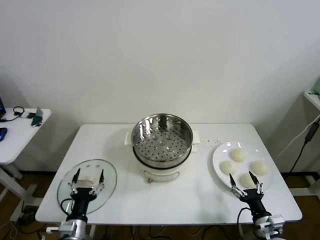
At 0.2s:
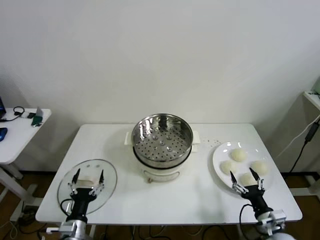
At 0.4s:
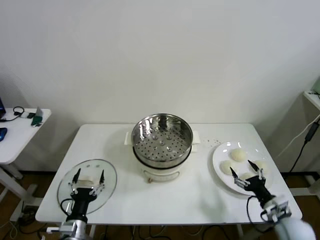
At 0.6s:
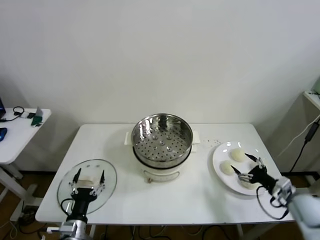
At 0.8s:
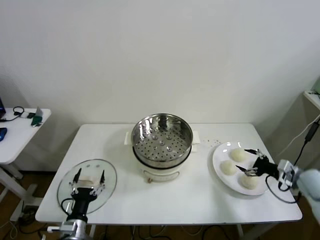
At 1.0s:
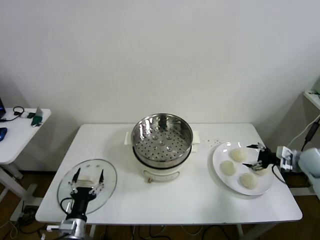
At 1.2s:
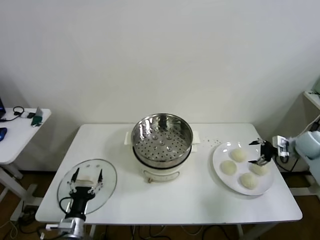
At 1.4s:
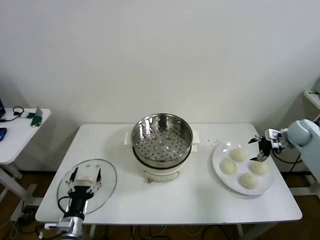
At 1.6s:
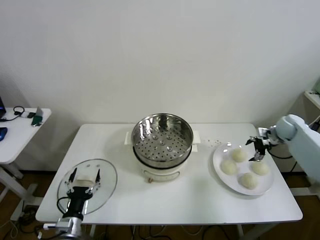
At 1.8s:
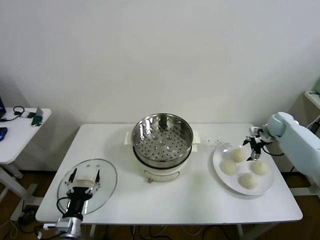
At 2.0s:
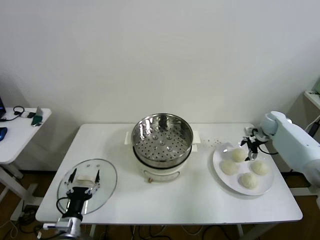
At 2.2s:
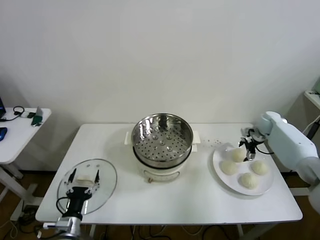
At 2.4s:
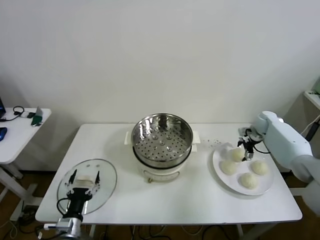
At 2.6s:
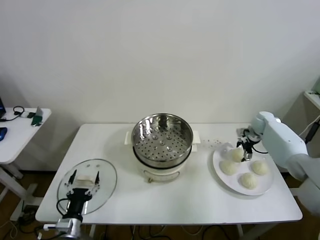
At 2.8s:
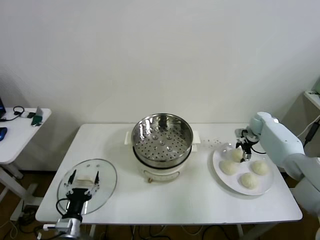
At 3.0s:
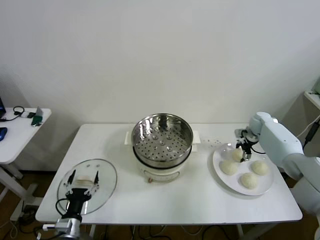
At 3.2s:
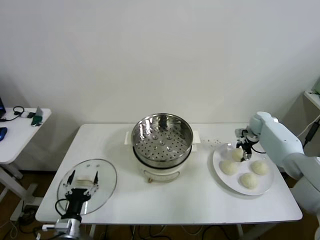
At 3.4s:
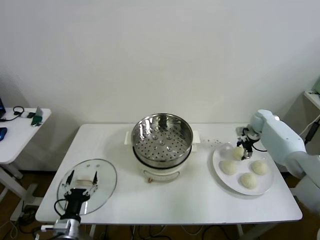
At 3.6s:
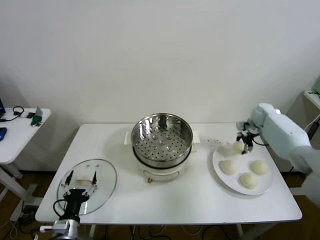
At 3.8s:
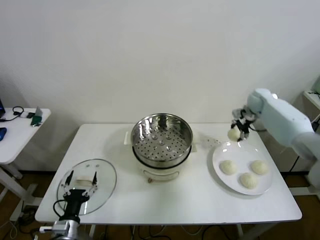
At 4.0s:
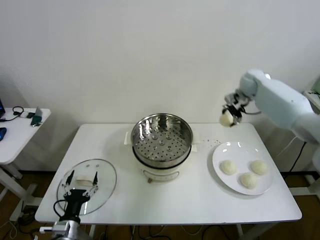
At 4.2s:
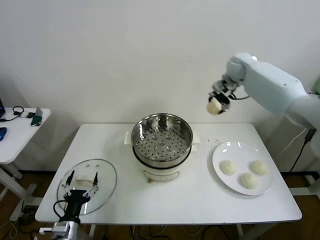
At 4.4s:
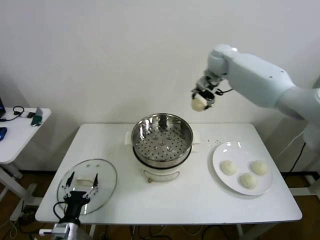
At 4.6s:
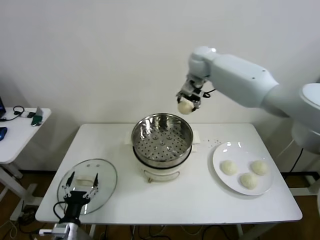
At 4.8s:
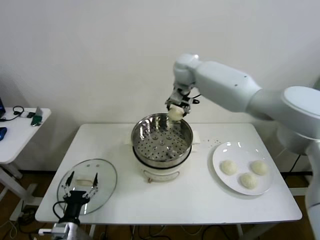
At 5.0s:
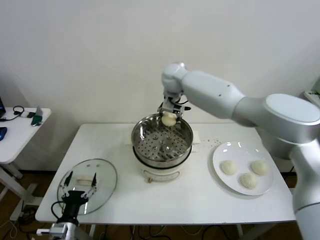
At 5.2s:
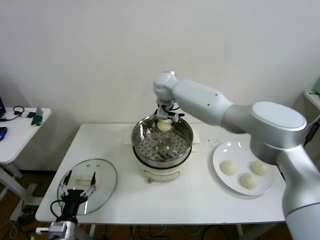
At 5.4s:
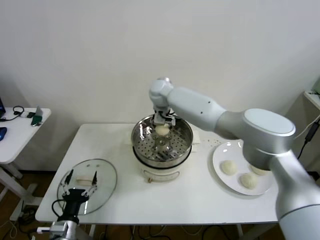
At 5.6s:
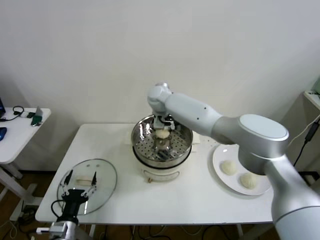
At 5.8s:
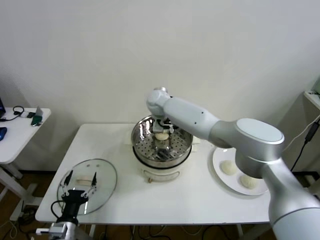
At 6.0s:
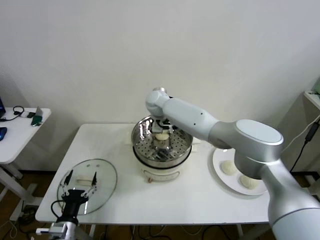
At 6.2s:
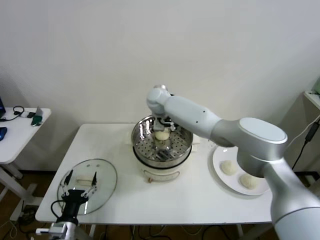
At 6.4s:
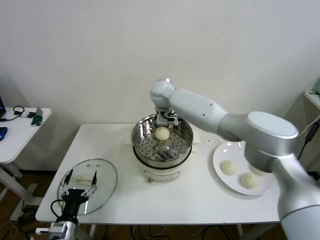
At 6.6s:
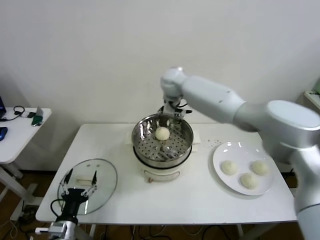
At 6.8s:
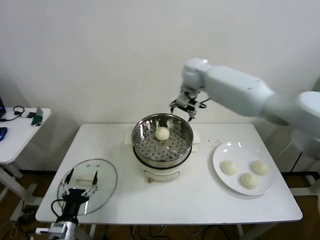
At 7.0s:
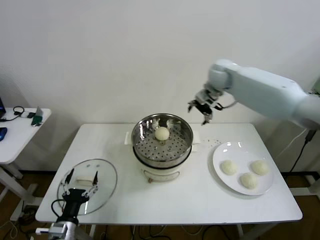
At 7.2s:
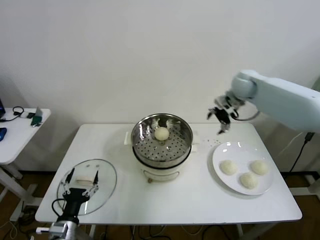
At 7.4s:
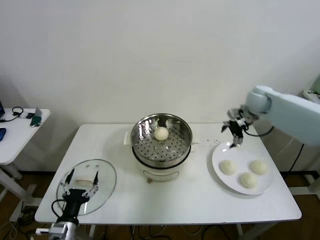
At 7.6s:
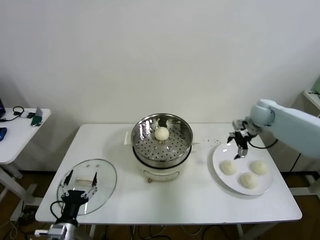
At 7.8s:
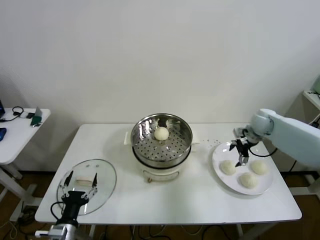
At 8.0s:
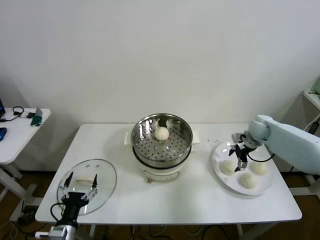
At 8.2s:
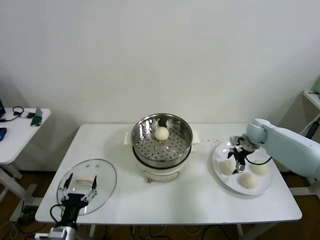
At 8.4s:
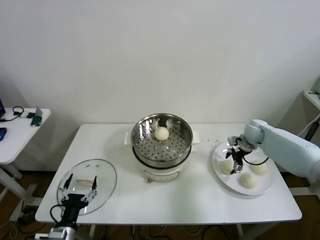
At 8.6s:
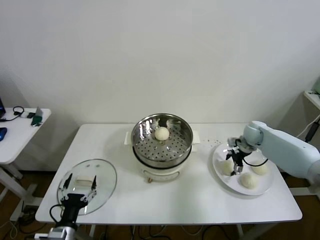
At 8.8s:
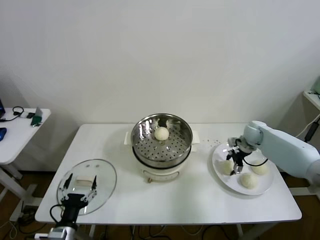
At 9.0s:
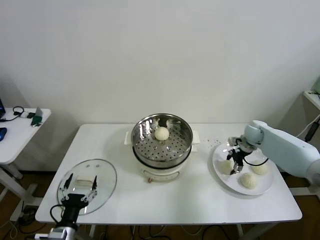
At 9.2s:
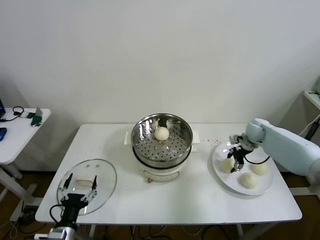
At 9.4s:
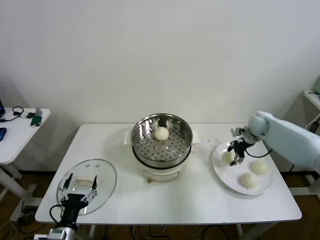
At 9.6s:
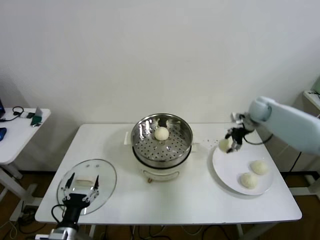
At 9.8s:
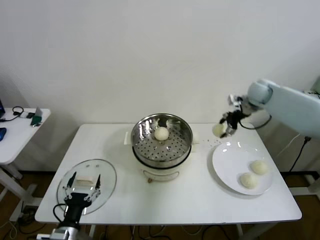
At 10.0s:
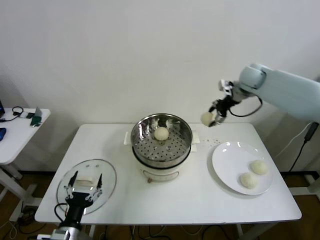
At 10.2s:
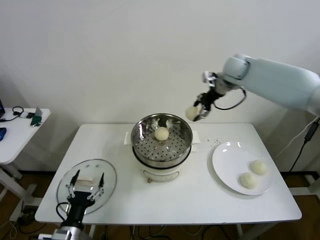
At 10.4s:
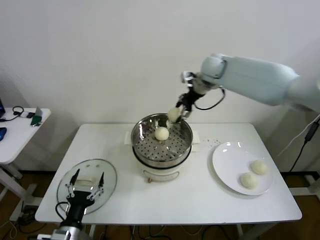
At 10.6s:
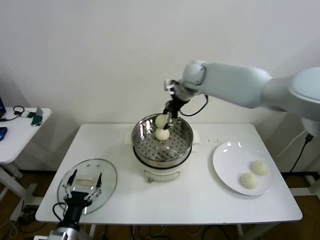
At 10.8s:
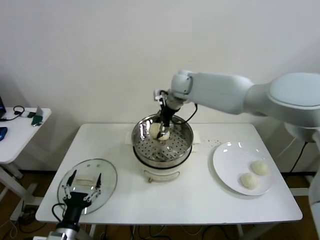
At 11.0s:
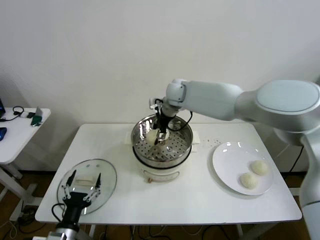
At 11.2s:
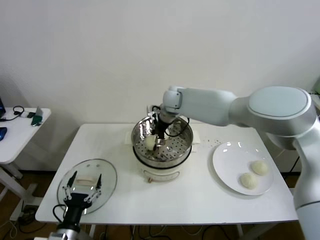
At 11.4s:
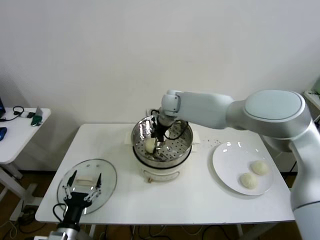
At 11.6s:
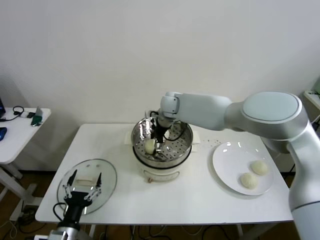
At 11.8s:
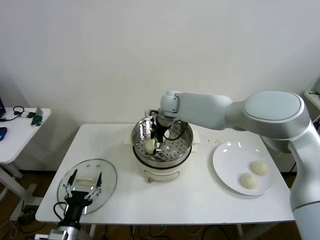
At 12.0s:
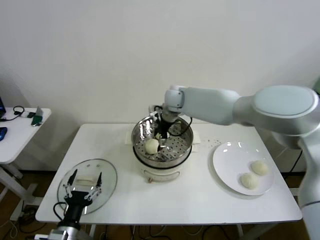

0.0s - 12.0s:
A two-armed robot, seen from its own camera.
Step, 0.0s - 3.2s: Grasp the baozi in the plate with right gripper.
Step, 3.4s - 5.8s: Place the baozi on the steamer with right gripper.
Step, 6.0s - 9.0s: Grasp the baozi in the plate with right gripper.
Step, 9.2s - 11.8s: Place the baozi on the steamer with right gripper.
1.6s - 3.0s: The right gripper is displaced to the left by roughly 5 cm.
3.0s - 4.4s: The right gripper goes some 40 cm upward and to the left.
4.4s - 6.0s: The right gripper heads to the left and downward, covering roughly 25 cm.
6.0s - 7.6s: The right gripper travels to the right by approximately 40 cm.
7.6s - 9.0s: The right gripper heads downward, covering some 10 cm.
9.0s - 10.4s: The right gripper moves upward and to the left, some 35 cm.
10.4s - 12.0s: The right gripper moves downward and to the left, roughly 10 cm.

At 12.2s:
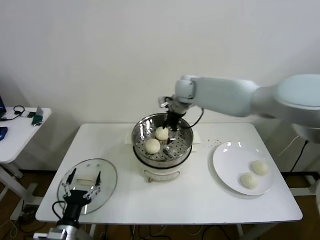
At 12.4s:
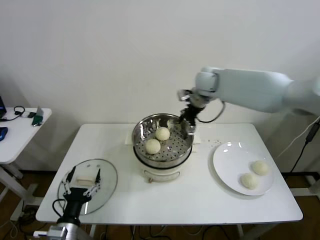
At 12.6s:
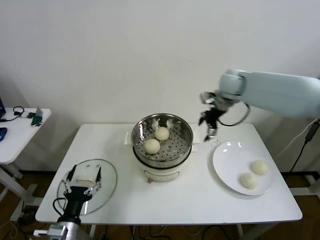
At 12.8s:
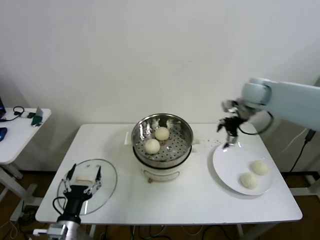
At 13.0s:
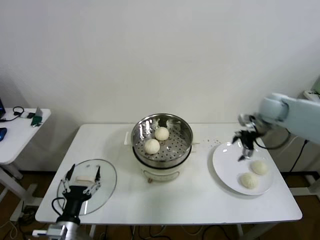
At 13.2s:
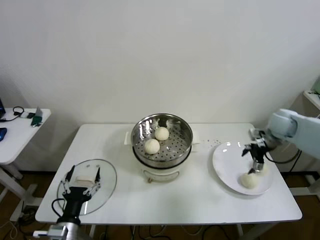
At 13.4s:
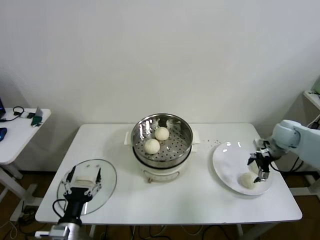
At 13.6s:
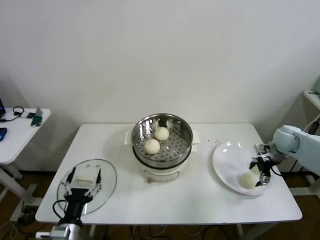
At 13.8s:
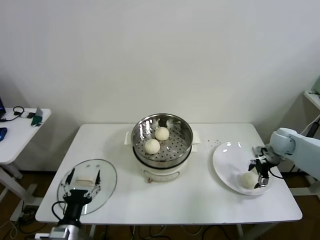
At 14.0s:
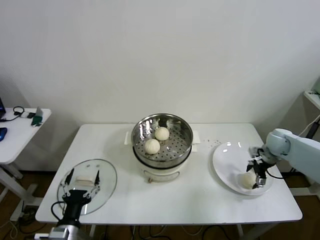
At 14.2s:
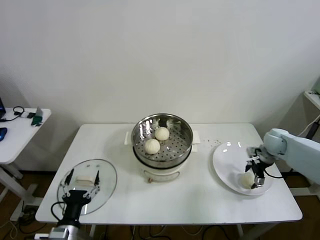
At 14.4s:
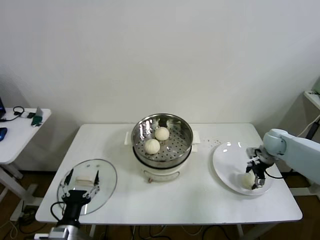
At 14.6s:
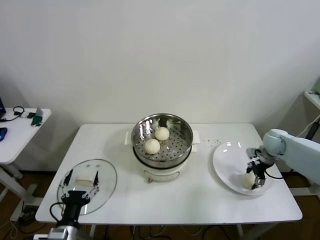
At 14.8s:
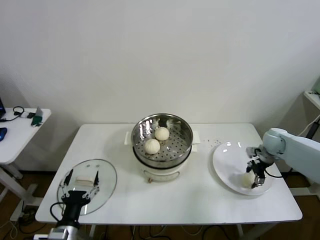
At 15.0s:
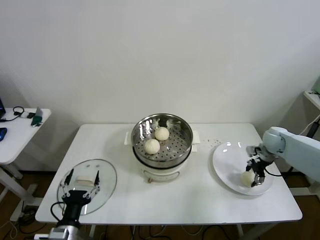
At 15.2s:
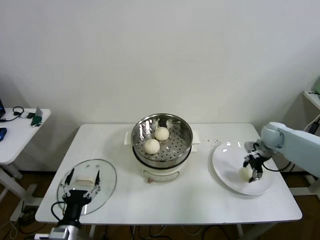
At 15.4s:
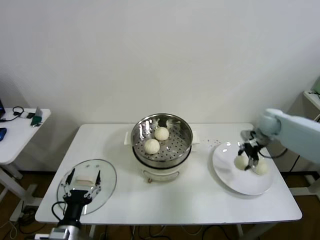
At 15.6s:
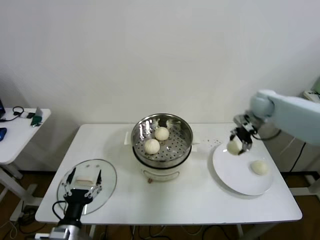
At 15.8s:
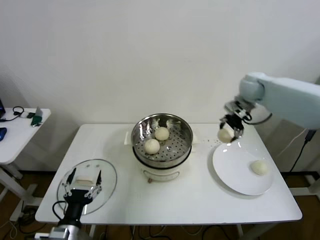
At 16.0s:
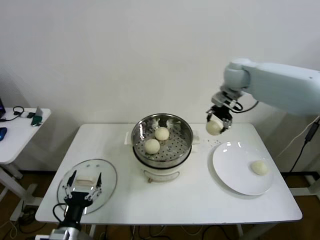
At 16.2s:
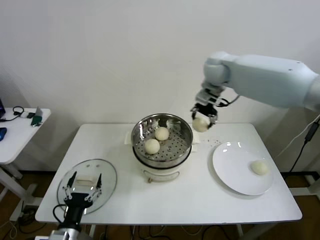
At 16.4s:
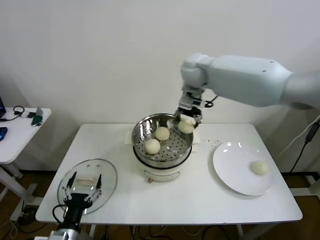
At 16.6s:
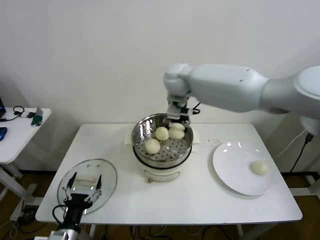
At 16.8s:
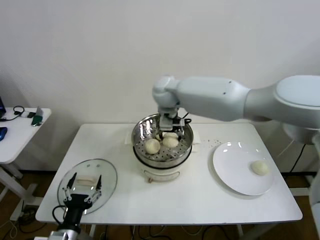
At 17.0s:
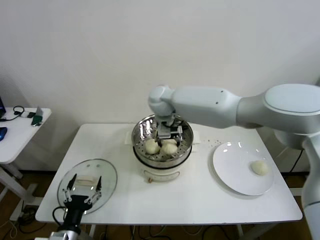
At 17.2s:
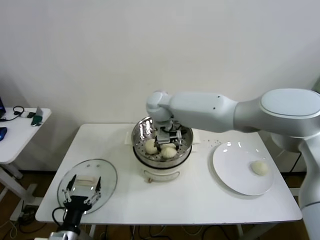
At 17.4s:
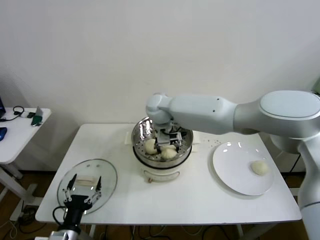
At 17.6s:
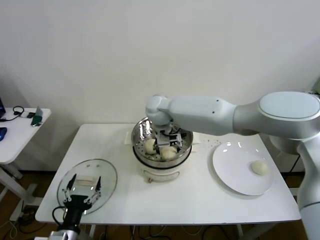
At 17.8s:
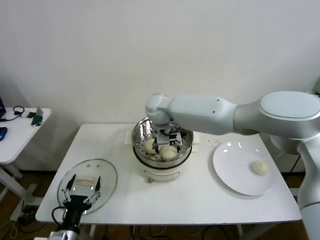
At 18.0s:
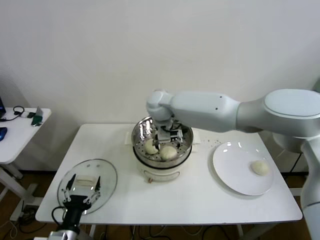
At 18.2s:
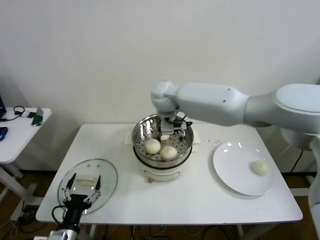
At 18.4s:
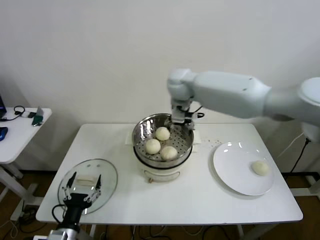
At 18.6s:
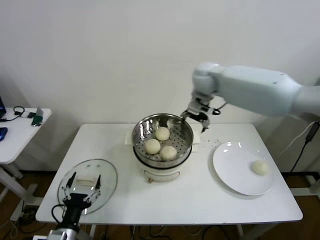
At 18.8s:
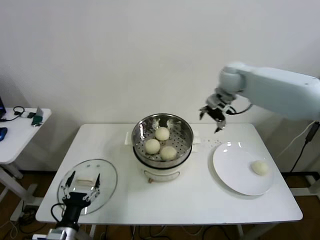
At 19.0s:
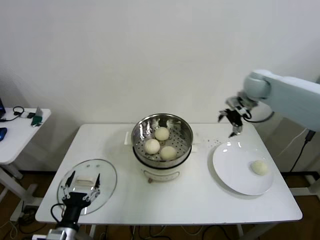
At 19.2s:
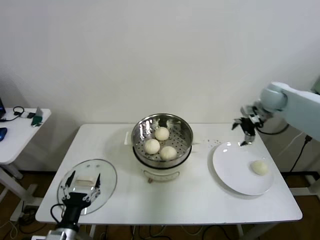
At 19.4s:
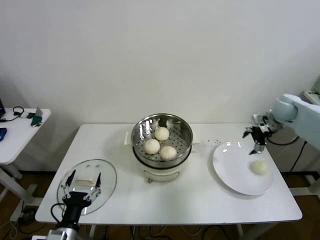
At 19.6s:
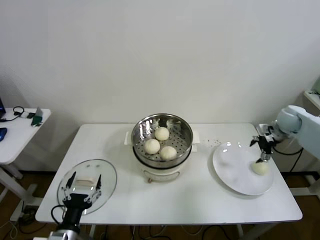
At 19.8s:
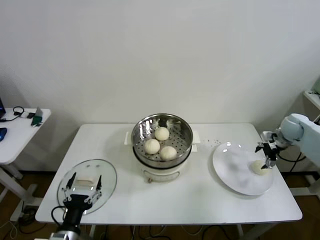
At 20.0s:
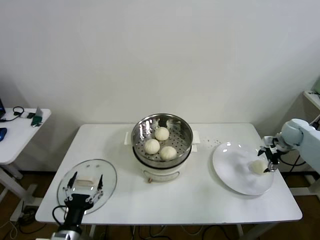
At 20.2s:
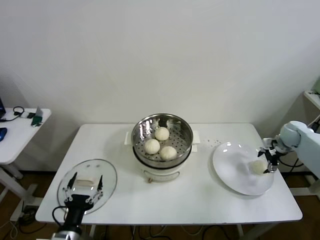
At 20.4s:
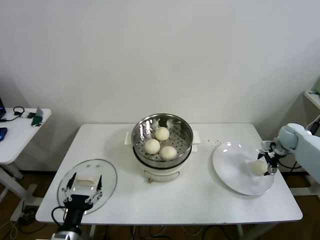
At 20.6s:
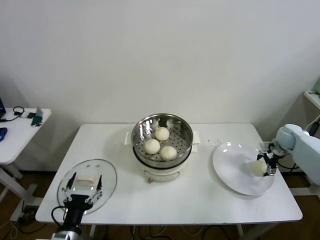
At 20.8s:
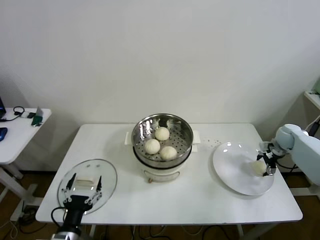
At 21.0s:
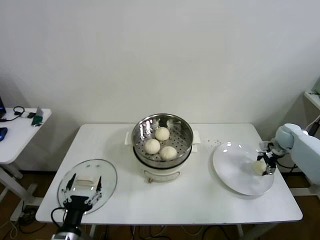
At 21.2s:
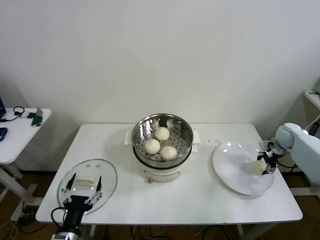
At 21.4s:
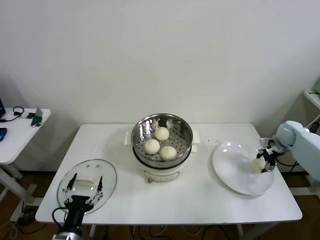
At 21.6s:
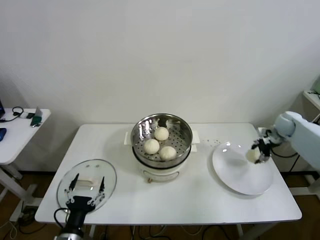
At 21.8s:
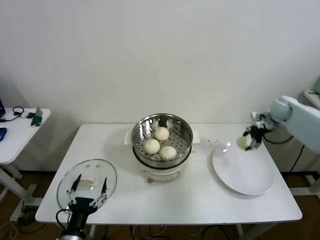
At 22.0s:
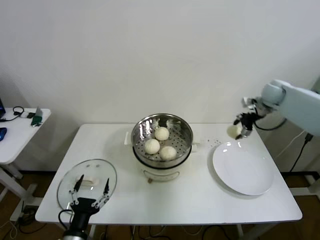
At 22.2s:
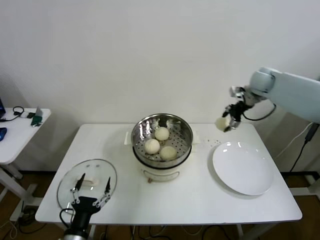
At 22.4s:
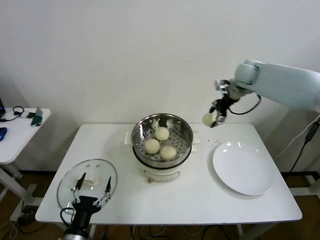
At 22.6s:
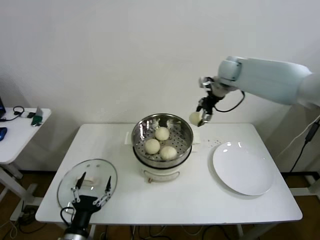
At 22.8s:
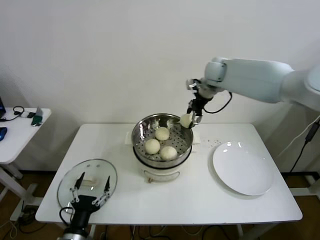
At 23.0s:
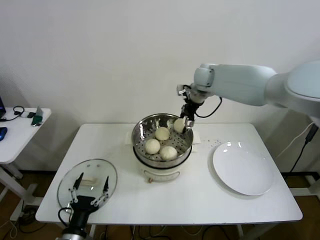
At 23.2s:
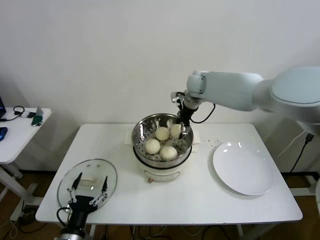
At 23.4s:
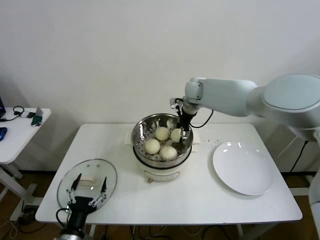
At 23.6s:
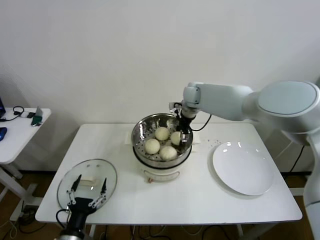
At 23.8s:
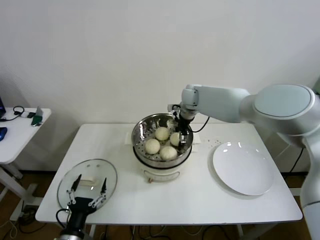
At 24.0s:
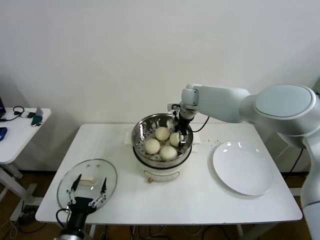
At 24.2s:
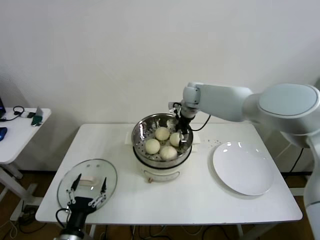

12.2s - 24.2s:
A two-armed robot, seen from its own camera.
Step, 12.2s - 14.6s: Grasp the baozi in the plate with right gripper.
Step, 15.0s - 17.8s: Place the baozi on the steamer with right gripper.
Step, 18.0s - 21.0s: Grasp the baozi in the plate with right gripper.
Step, 21.2s - 24.2s: Place the baozi on the steamer with right gripper.
12.2s - 13.8s: The right gripper goes roughly 40 cm to the right and downward.
13.8s - 15.2s: The grippers make only small movements.
15.2s - 16.6s: The right gripper shifts about 40 cm to the left and upward.
18.2s - 19.8s: The right gripper moves to the right, roughly 50 cm.
19.8s - 21.2s: The right gripper heads downward, covering roughly 5 cm.
21.2s - 22.6s: The right gripper is displaced to the left and upward by approximately 35 cm.
22.6s - 24.2s: The right gripper is displaced to the left and downward by roughly 15 cm.
